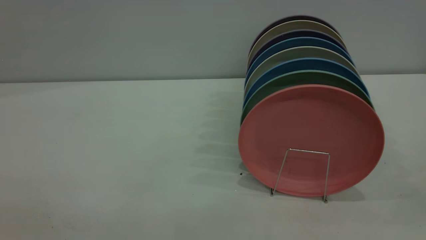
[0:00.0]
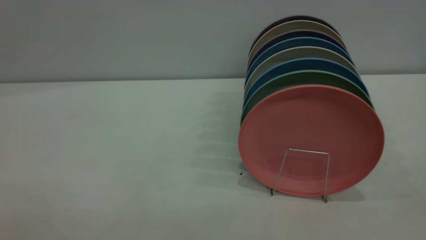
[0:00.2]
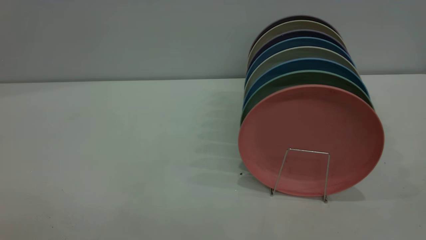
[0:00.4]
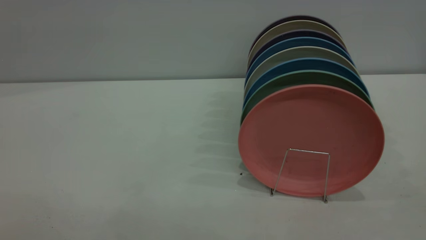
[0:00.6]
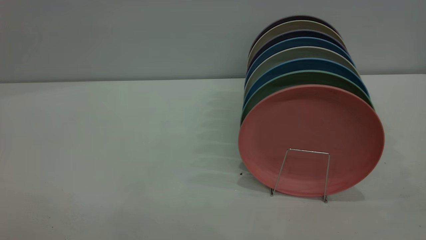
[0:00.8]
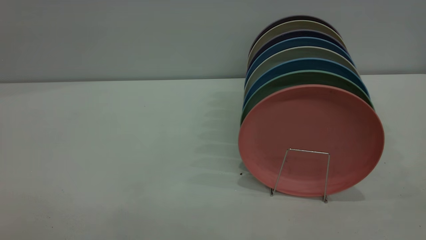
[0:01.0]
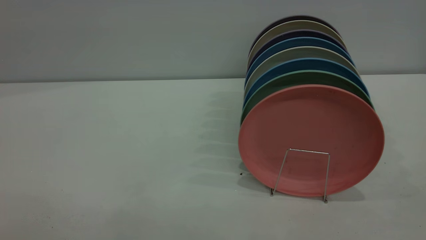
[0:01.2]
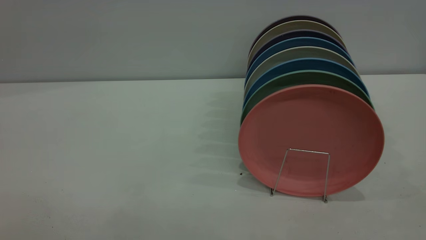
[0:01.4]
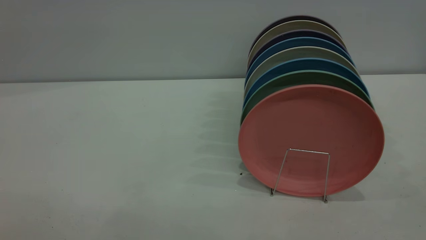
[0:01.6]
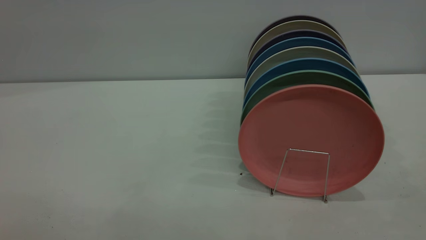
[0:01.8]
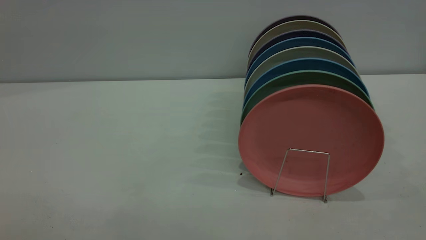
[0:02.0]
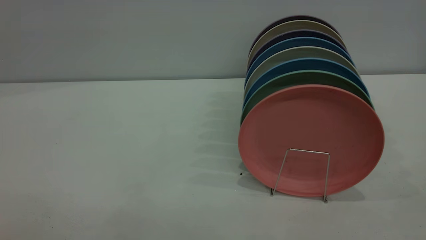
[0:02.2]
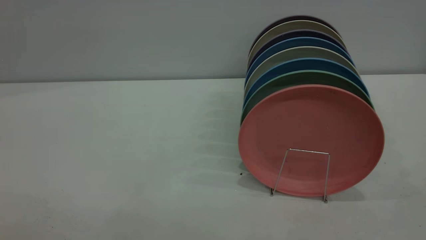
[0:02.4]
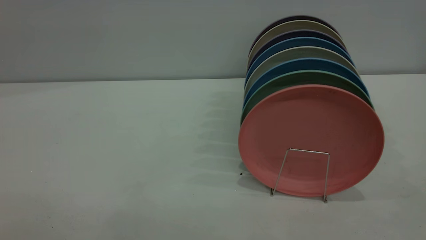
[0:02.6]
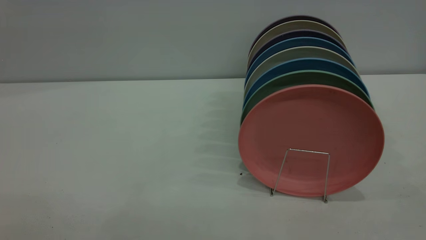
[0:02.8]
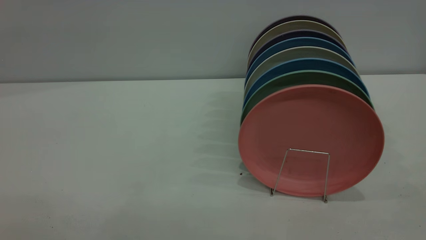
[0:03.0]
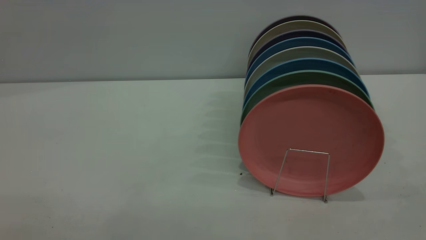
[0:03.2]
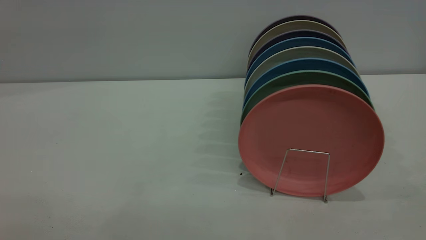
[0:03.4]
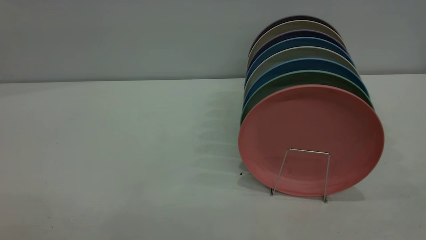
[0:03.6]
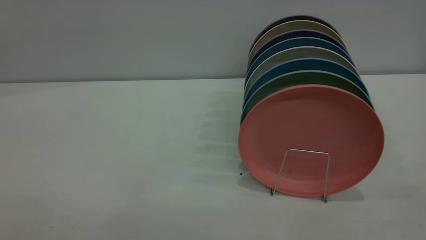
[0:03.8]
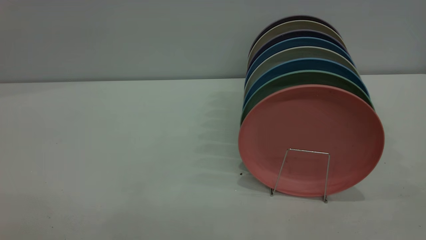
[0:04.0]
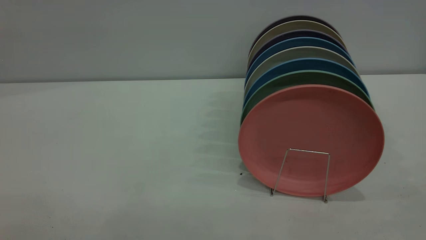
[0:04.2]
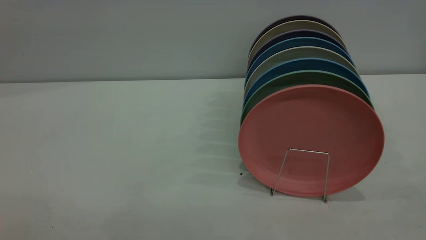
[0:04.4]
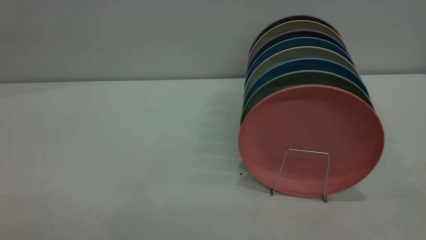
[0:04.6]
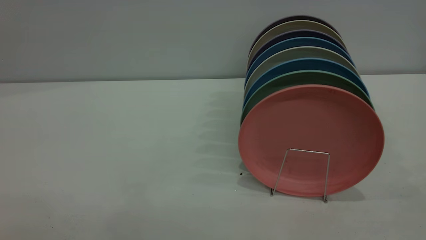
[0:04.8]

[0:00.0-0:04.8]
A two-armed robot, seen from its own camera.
Task of the whole recording: put the plate on the plate rack.
0:03.2 to 0:04.8: The two grippers keep their place.
